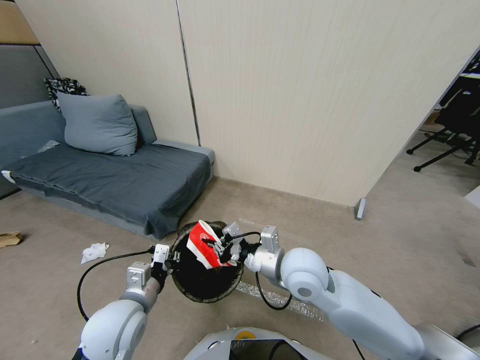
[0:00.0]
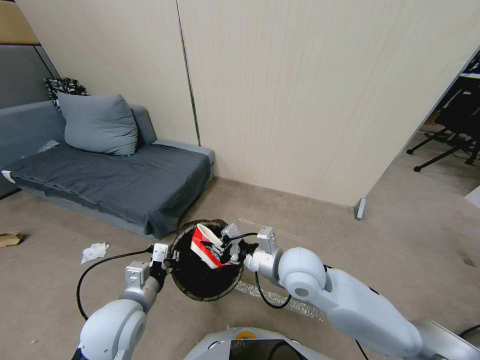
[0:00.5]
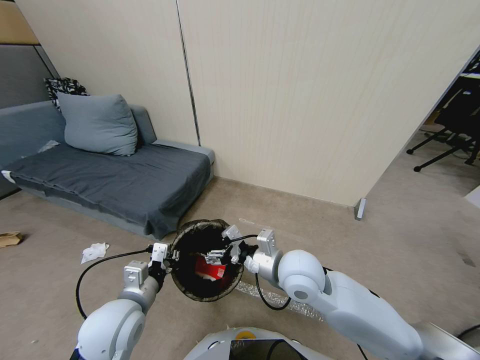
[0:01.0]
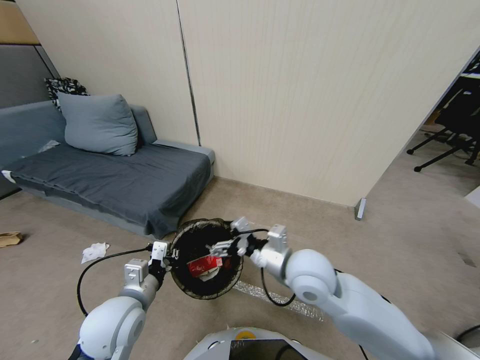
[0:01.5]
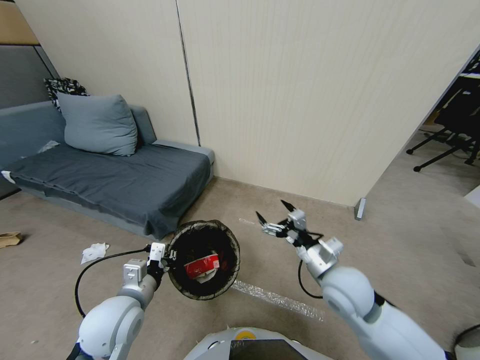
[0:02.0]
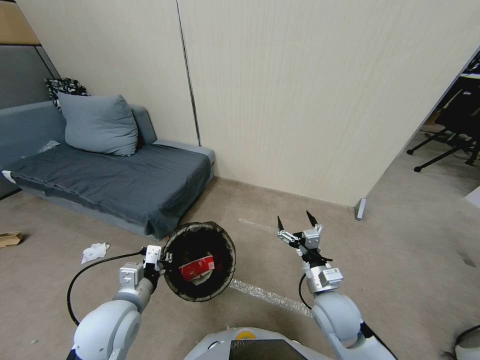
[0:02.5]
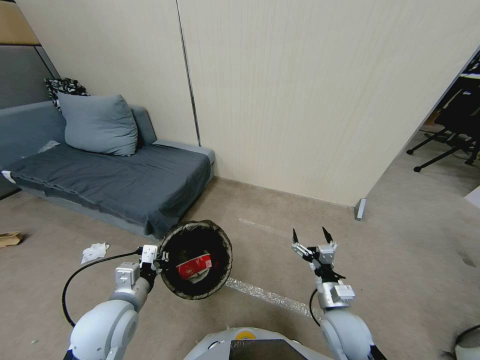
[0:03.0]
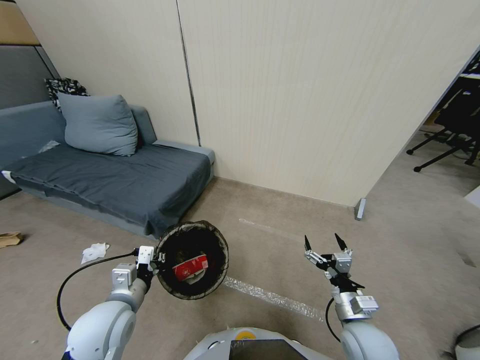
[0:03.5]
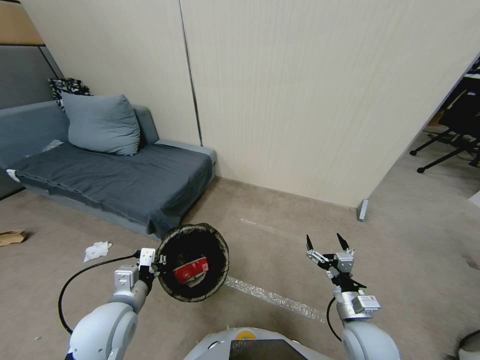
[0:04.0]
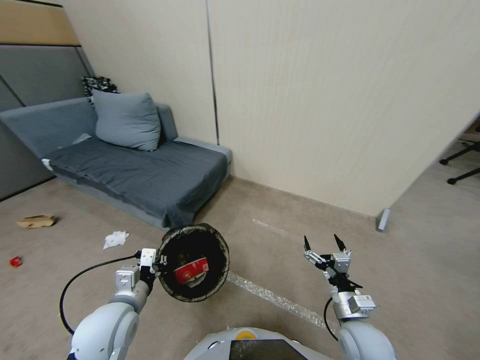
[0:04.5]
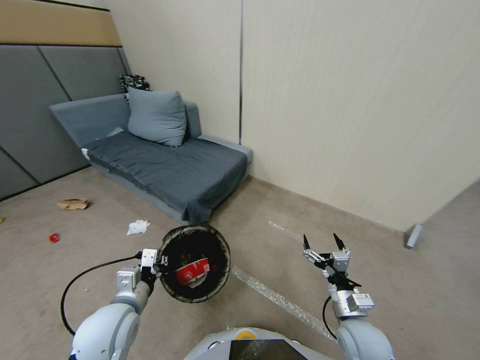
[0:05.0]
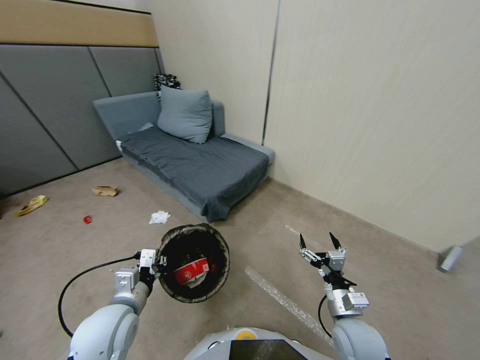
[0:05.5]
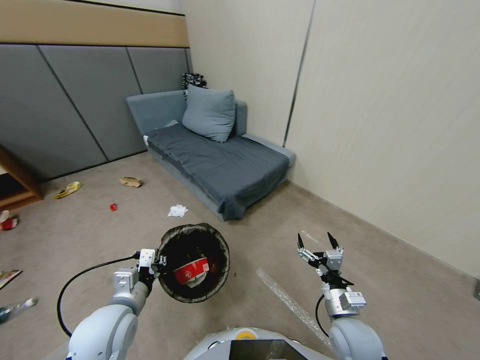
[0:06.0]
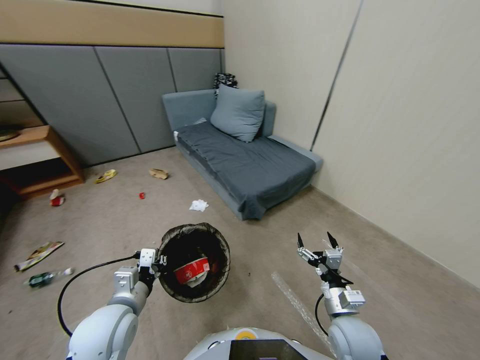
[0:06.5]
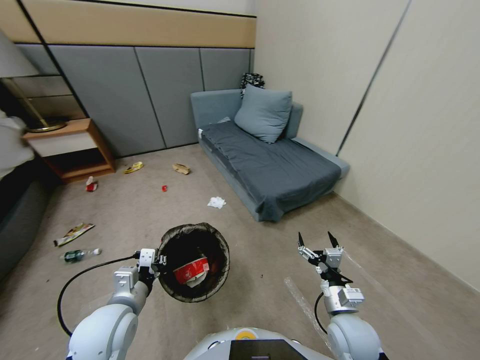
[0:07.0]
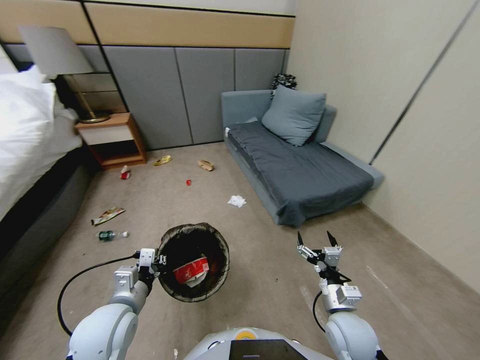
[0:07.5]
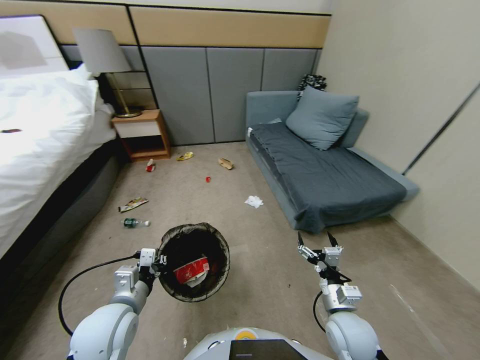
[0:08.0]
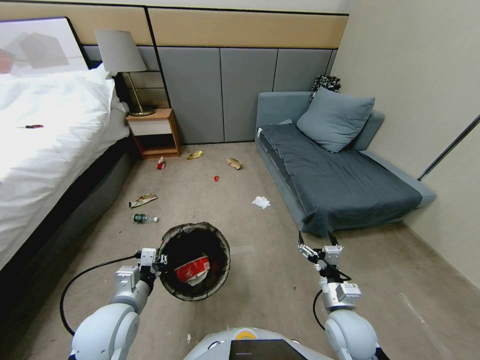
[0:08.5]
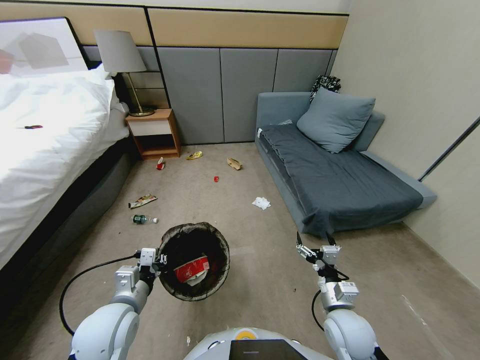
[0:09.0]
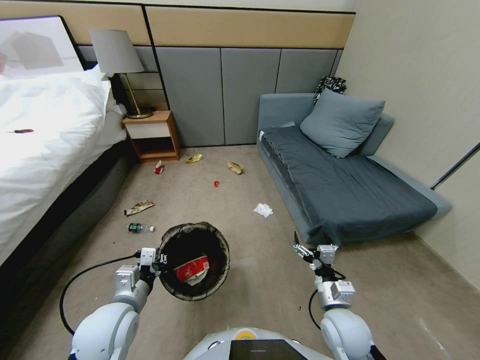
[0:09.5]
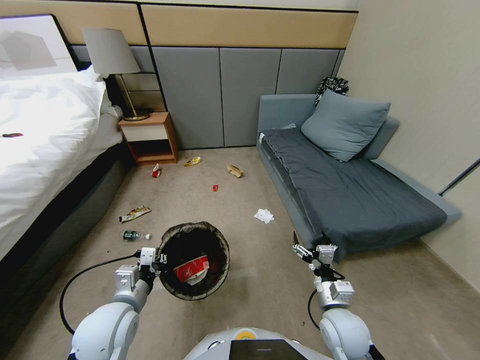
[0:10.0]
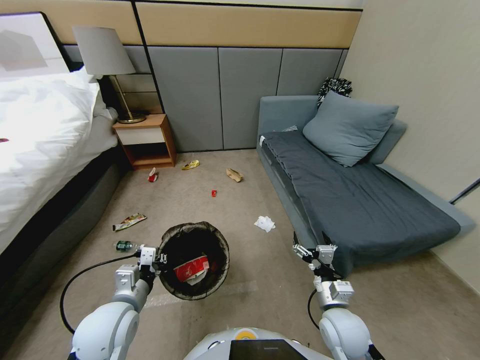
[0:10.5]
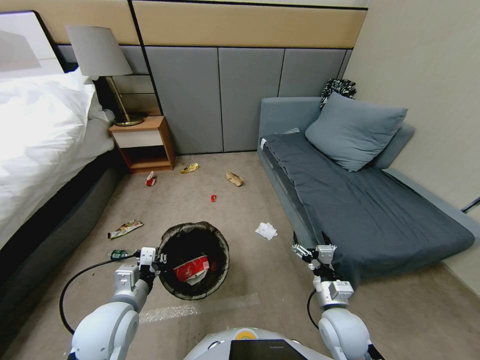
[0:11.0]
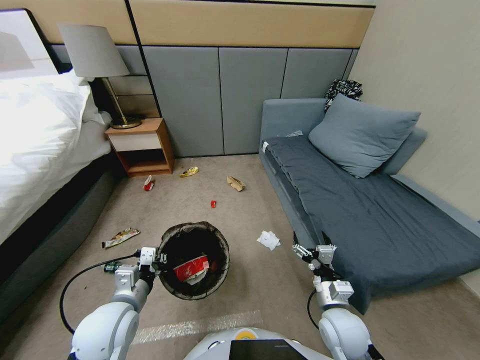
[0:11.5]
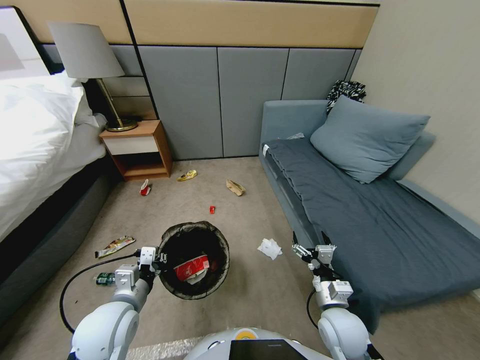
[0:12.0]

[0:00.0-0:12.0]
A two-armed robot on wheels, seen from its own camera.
Task of the whole recording: Pick up the trash bin, then pick up the garbage from the floor and place it into the trash bin.
0:00.0 to 0:02.0: The right gripper goes about 10 cm to the right and downward, and opens.
0:02.0 to 0:04.0: The right gripper heads downward, backward and to the right, covering some 10 cm.

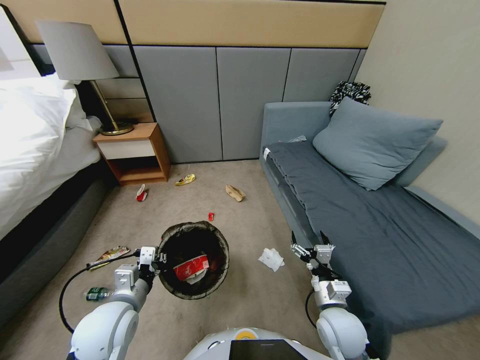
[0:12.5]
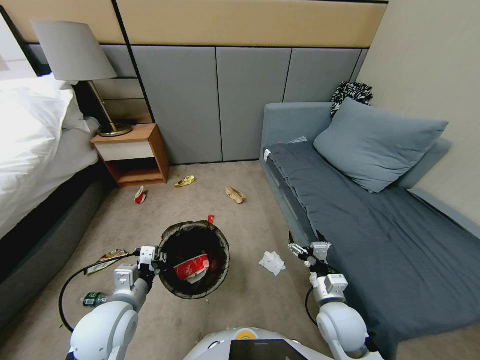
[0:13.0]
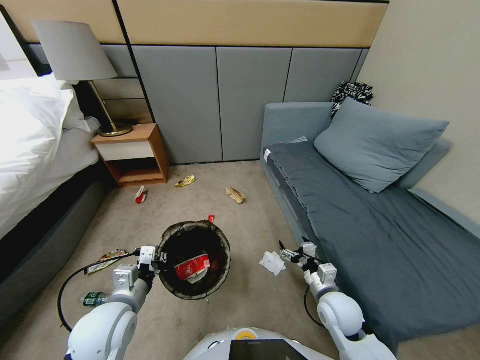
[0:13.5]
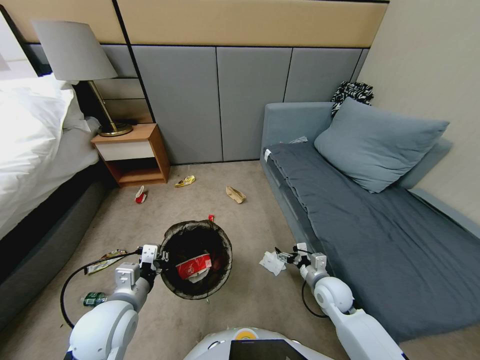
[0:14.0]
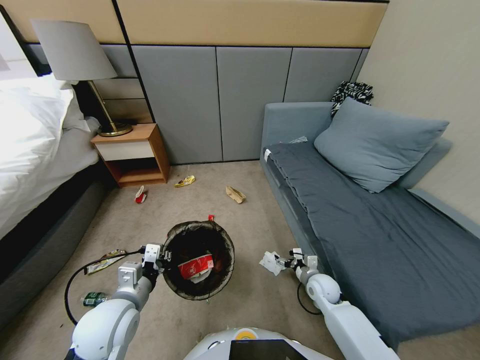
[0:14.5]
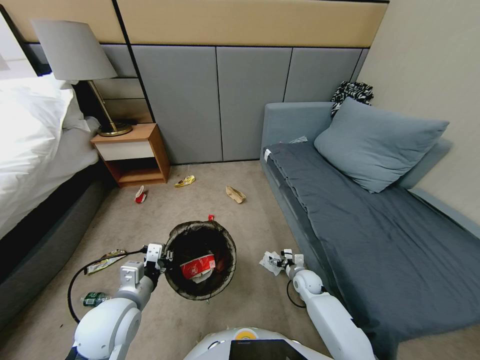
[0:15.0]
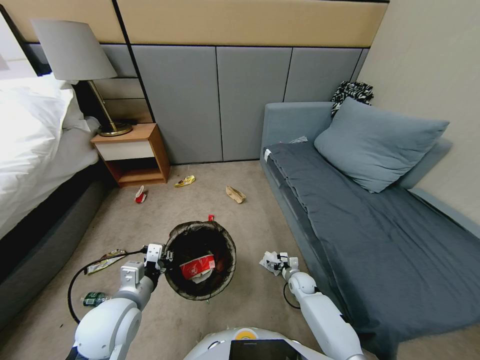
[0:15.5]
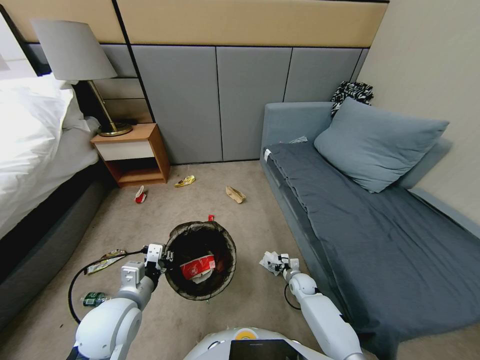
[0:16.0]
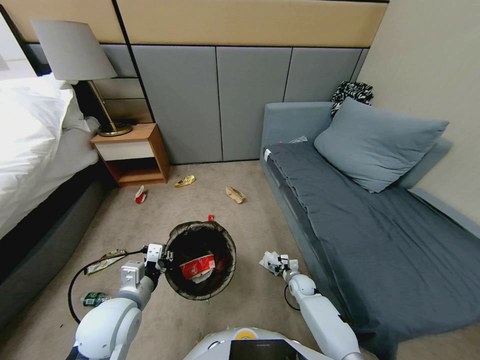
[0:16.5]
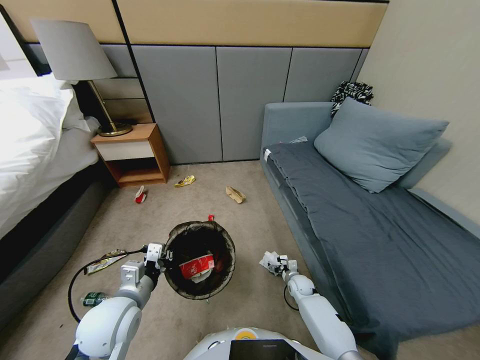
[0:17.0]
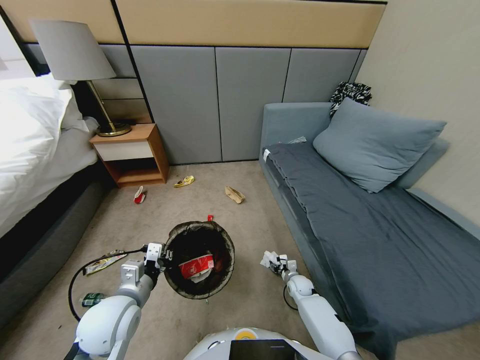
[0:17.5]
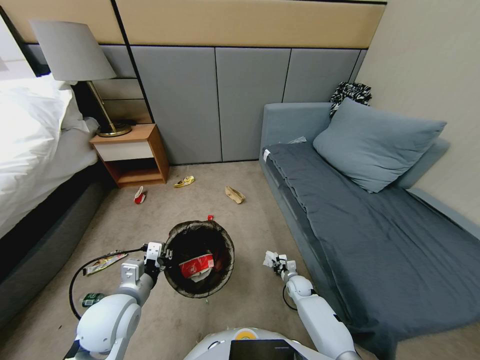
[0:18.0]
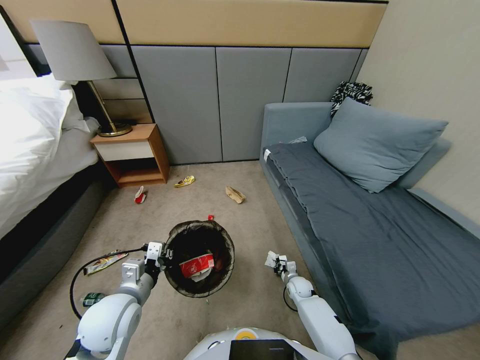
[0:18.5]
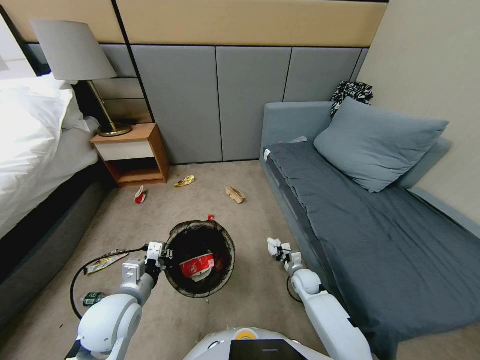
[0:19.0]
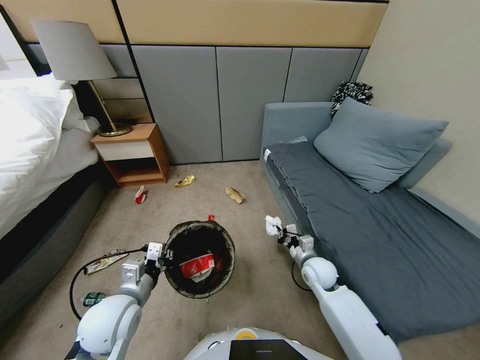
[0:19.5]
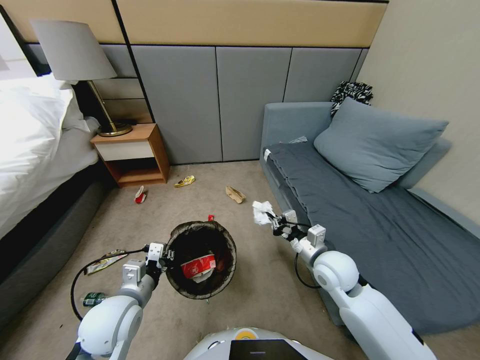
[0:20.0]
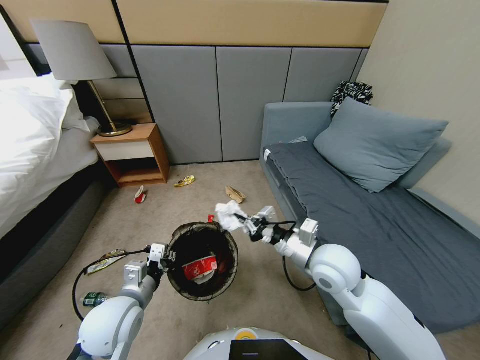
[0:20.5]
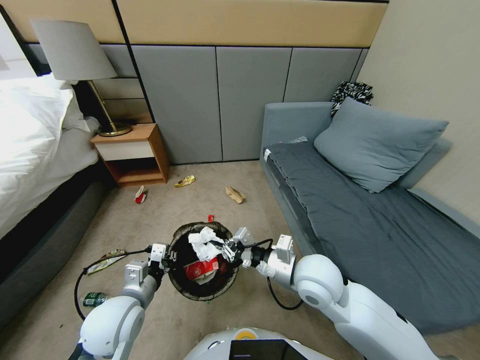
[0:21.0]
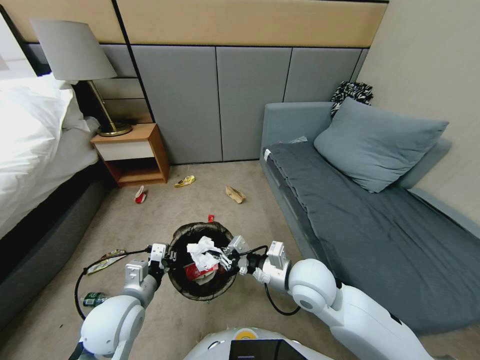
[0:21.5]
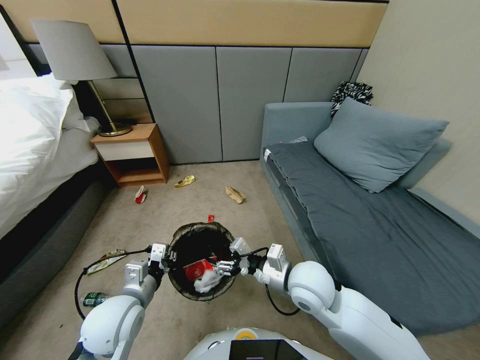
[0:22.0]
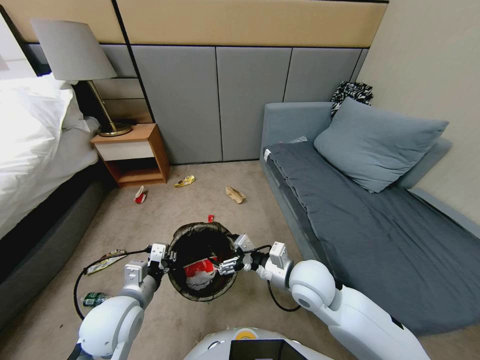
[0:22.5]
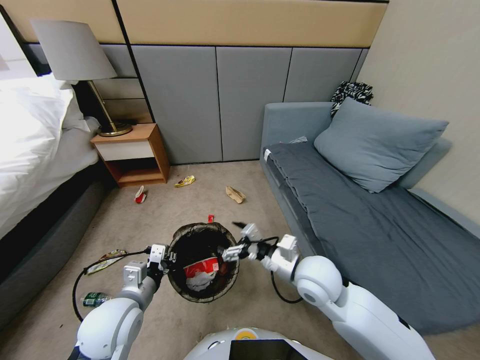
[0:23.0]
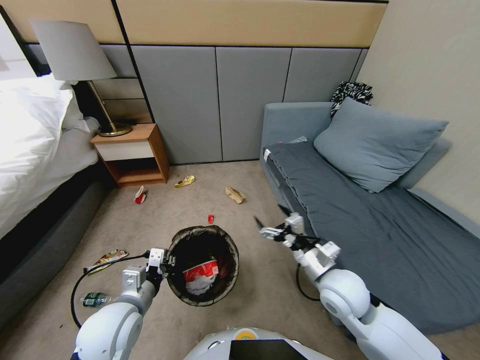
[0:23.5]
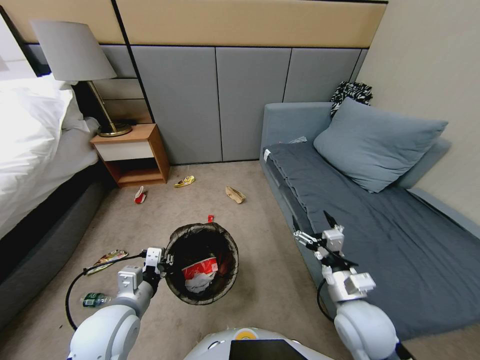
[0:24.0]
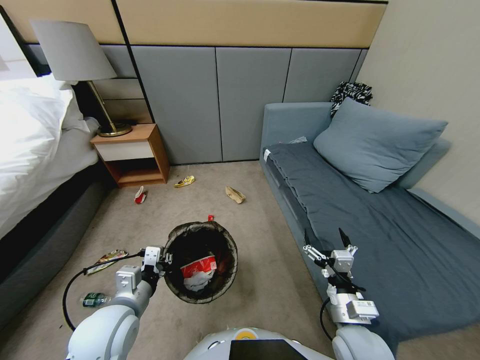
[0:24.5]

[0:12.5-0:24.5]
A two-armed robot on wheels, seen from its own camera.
Task of the whole recording: Pick up the trash bin, then pick up the garbage from the floor and place it into the trash bin.
0:12.5 to 0:14.5: The right gripper is displaced forward and downward by about 20 cm.
0:14.5 to 0:16.5: The right gripper travels downward by approximately 10 cm.
0:16.5 to 0:18.5: The right gripper closes.
0:18.5 to 0:20.5: The right gripper heads upward, covering some 35 cm.
0:20.5 to 0:22.5: The right gripper moves about 5 cm, and opens up.
0:22.5 to 0:24.5: The right gripper moves backward, to the right and downward, roughly 15 cm.

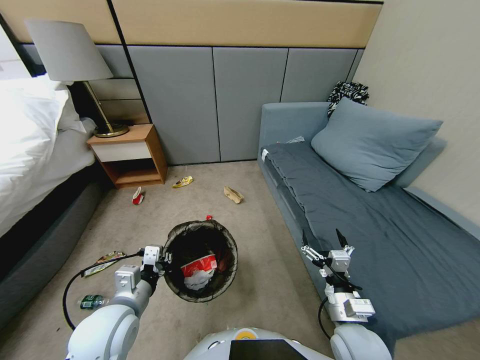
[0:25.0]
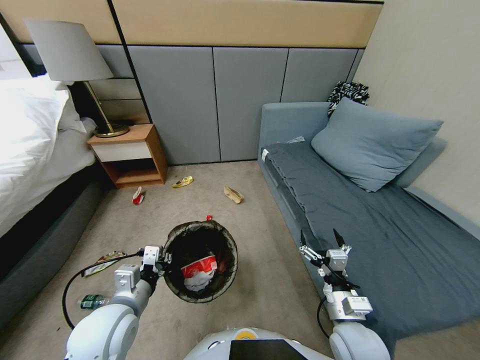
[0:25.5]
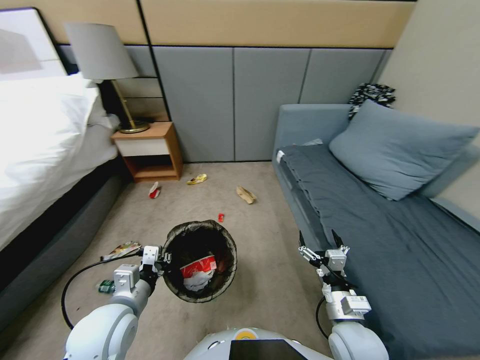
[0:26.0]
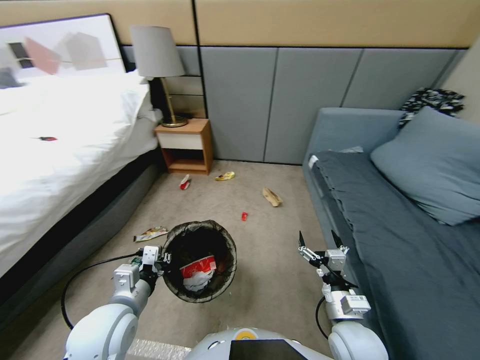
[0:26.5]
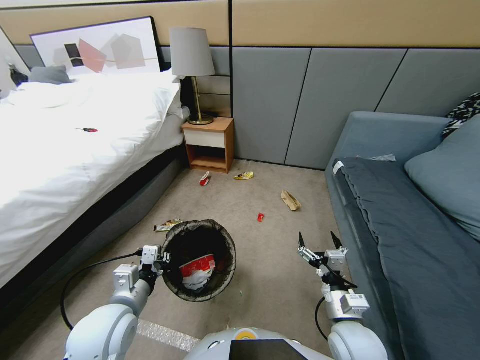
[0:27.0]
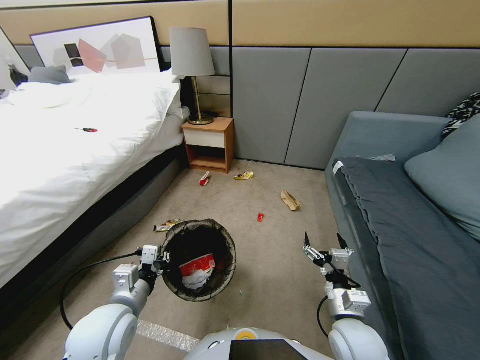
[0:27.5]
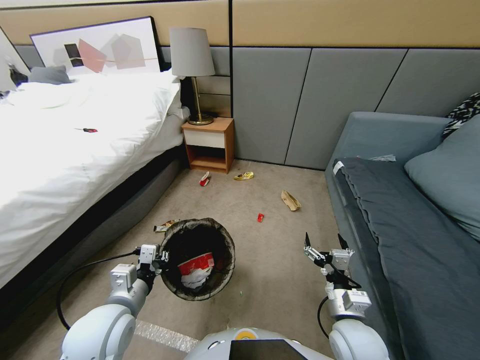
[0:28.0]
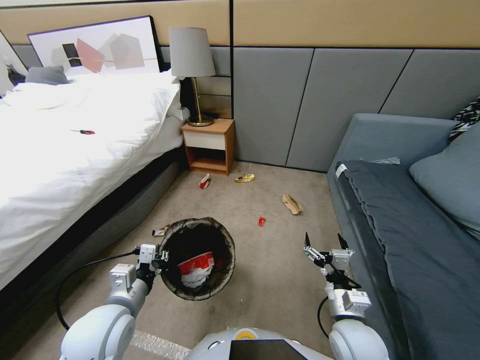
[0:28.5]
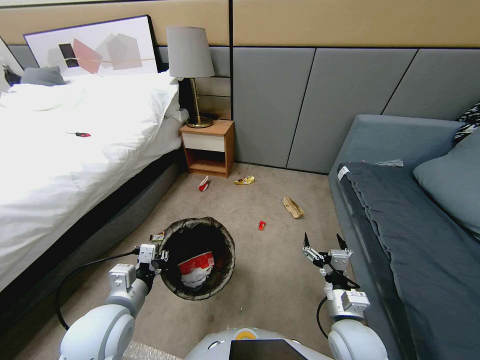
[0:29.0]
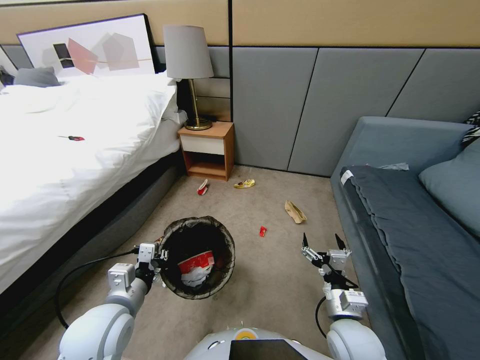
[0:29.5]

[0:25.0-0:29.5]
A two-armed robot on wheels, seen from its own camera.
Task of the whole recording: Pick up the trash bin, then pick up the garbage from the floor and place it into the trash bin.
0:27.0 to 0:29.5: Neither gripper changes place.
